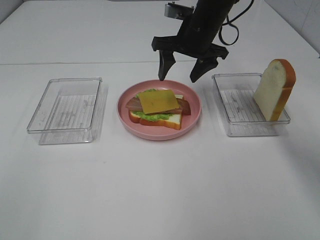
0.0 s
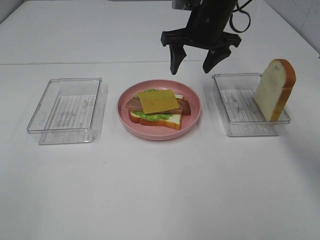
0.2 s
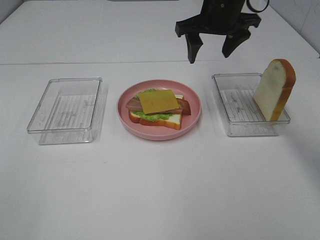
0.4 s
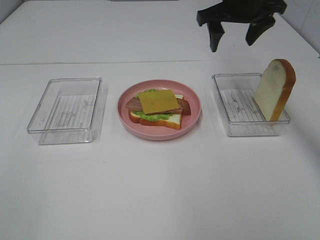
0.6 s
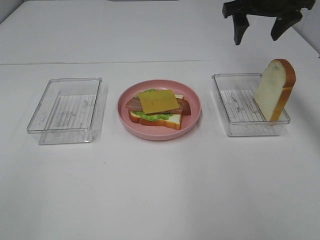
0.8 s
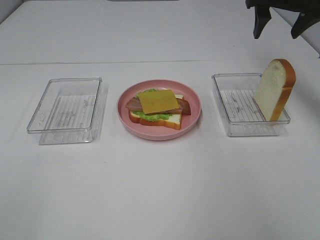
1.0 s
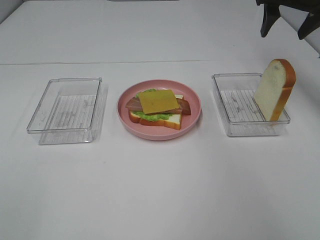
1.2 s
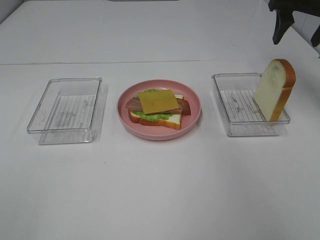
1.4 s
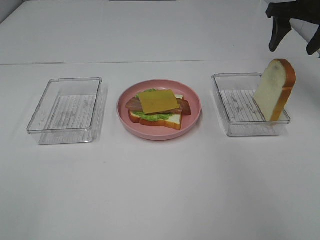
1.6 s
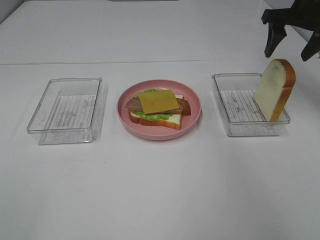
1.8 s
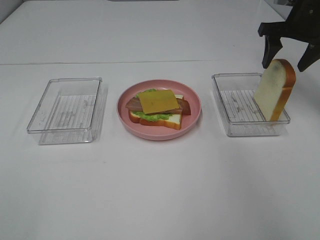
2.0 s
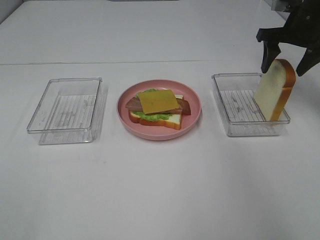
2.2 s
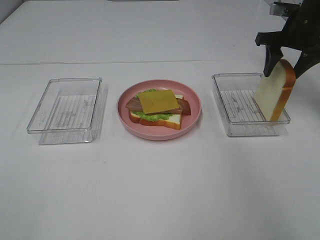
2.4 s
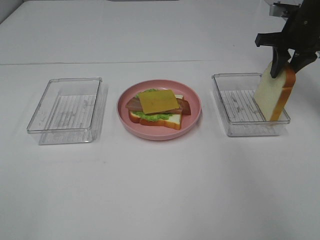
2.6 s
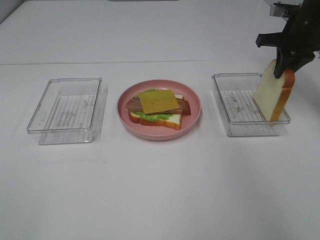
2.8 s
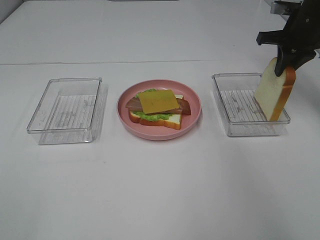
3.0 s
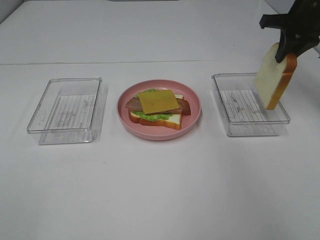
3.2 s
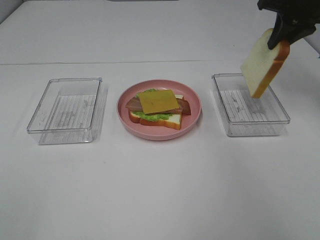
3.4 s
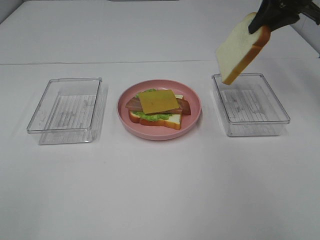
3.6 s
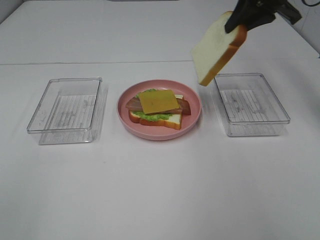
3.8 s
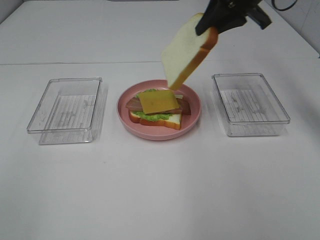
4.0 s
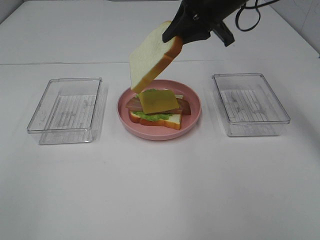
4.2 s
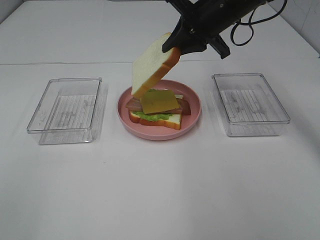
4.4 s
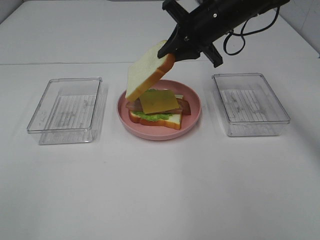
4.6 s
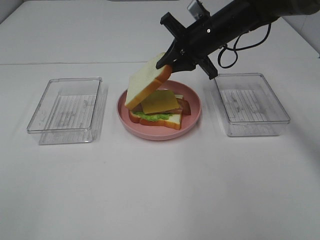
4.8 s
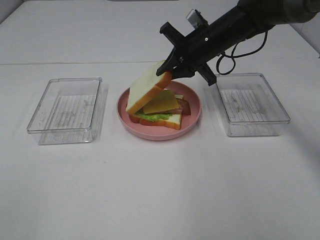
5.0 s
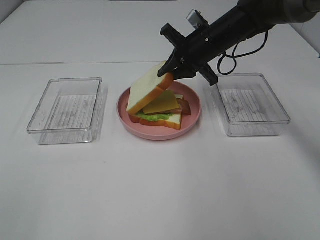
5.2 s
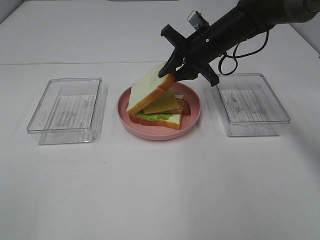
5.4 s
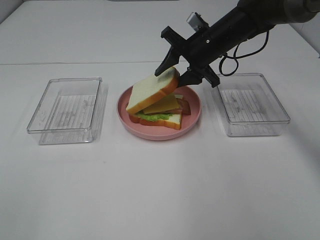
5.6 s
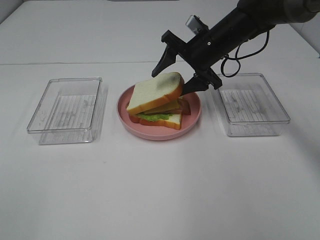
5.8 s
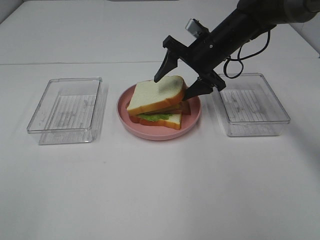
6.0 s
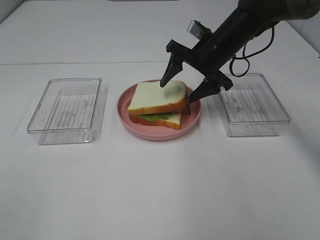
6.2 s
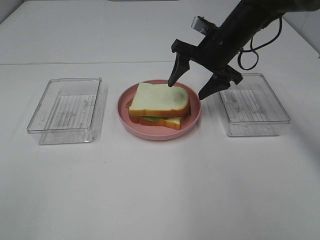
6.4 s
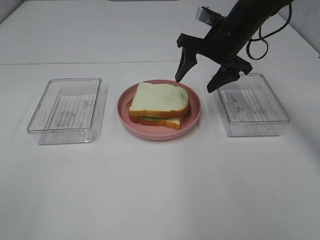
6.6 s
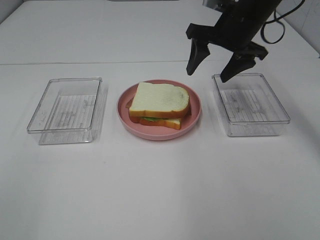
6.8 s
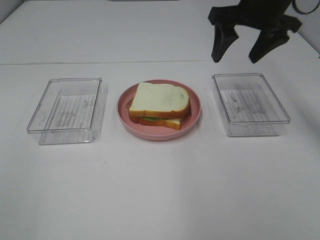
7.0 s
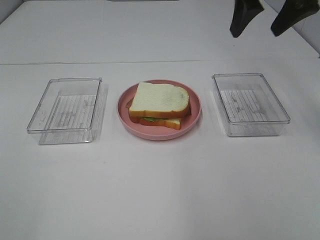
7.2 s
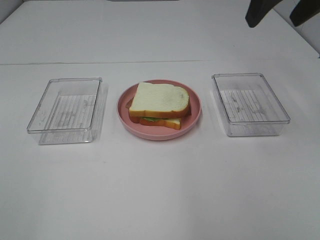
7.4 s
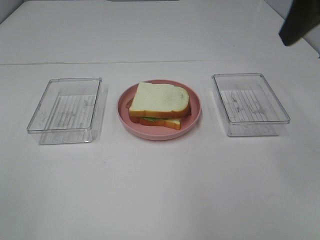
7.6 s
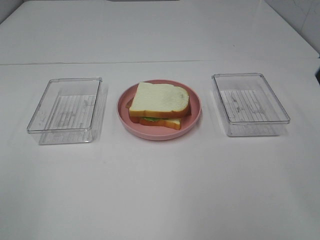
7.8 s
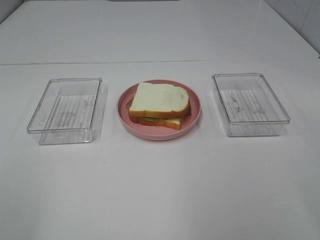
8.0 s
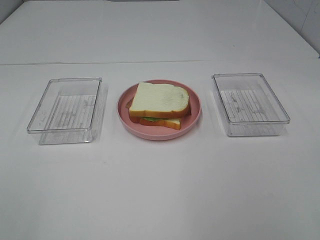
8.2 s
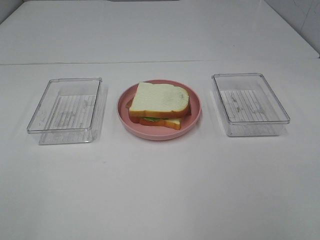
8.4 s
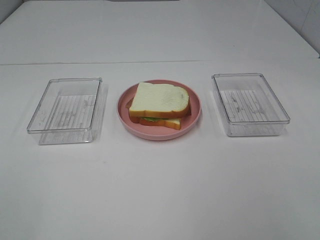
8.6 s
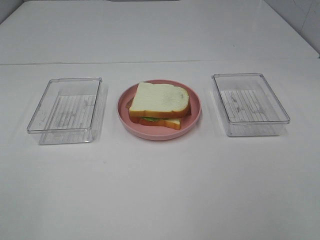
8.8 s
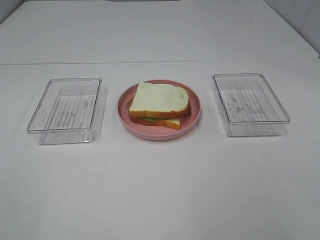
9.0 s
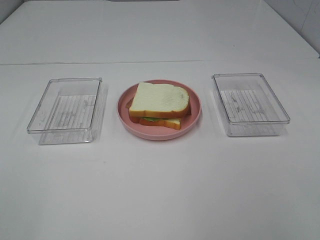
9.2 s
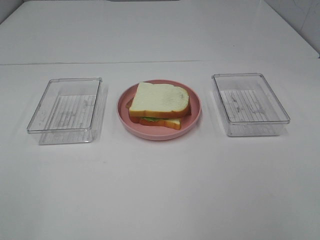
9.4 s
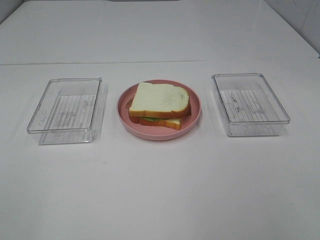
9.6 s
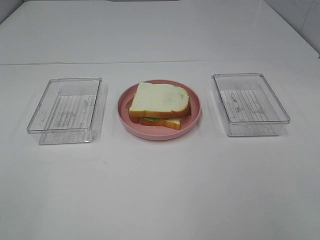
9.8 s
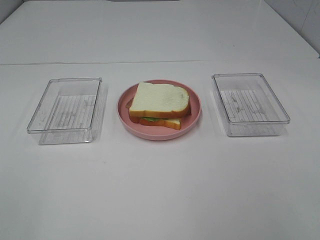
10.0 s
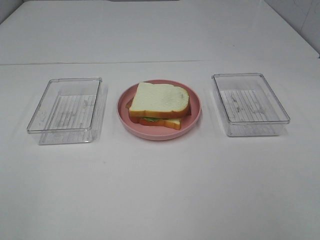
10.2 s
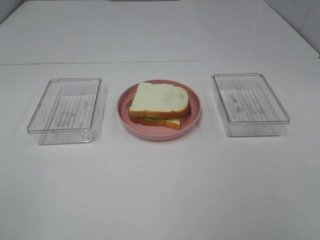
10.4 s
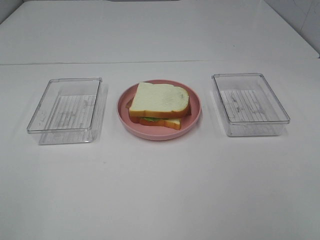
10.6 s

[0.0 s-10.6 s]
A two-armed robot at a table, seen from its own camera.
Task of the whole recording: Make sandwiches.
Step, 0.4 to 2.8 s: Right hand:grab the bread slice.
Step, 3.0 to 6.8 s: Right hand:place the bread slice on the cheese slice.
0.0 to 1.6 s: The right gripper is displaced to the right by approximately 20 cm.
1.6 to 3.0 s: The right gripper closes up.
3.0 to 4.6 s: The right gripper travels to the left by some 15 cm.
4.6 to 6.0 s: The right gripper opens up.
6.0 to 7.6 s: The right gripper is displaced upward, backward and to the right by roughly 30 cm.
7.6 to 9.0 s: The right gripper is displaced backward and downward by approximately 25 cm.

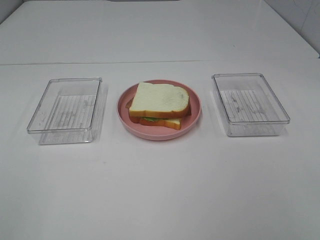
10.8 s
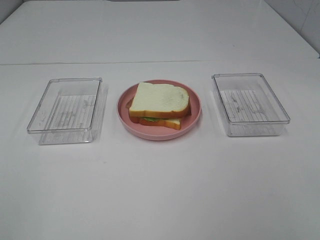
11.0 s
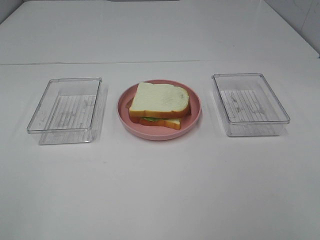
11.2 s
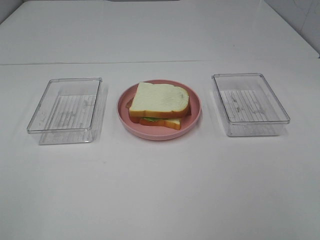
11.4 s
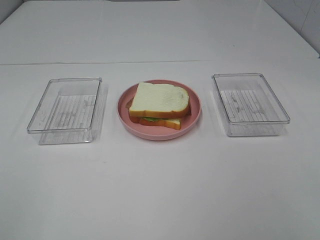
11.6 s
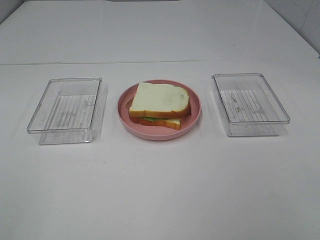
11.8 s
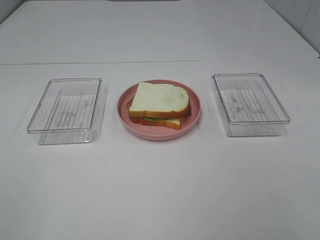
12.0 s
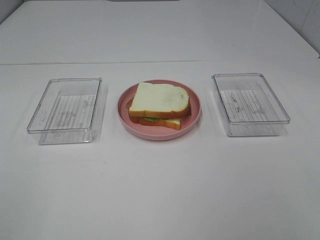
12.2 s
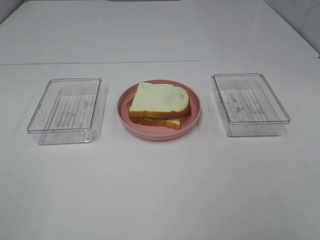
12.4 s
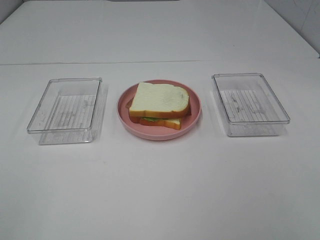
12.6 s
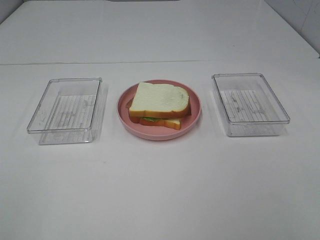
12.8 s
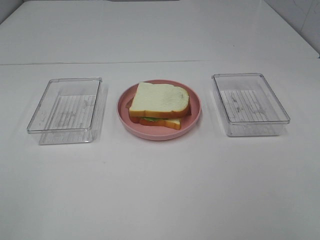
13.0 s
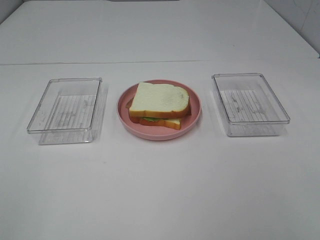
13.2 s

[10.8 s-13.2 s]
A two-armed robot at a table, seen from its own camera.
Task of the whole recording: Make sandwiches.
10.8 to 13.2 s: Both grippers stay about where they are.
